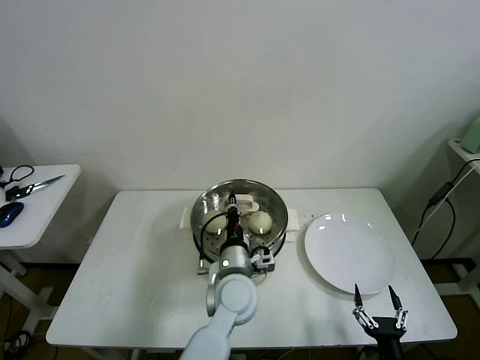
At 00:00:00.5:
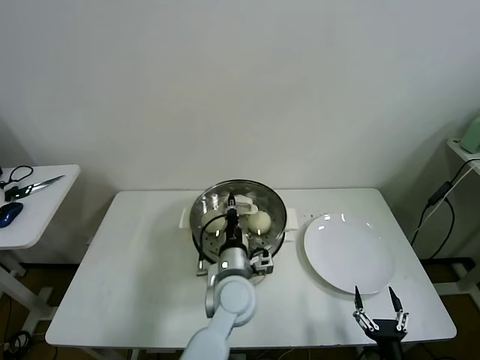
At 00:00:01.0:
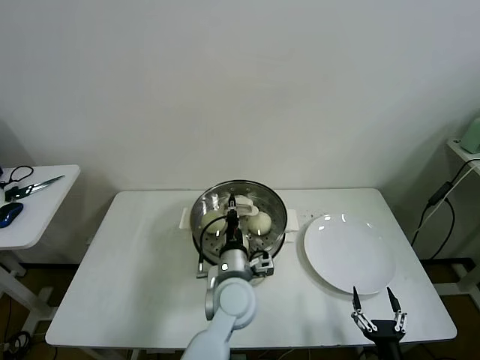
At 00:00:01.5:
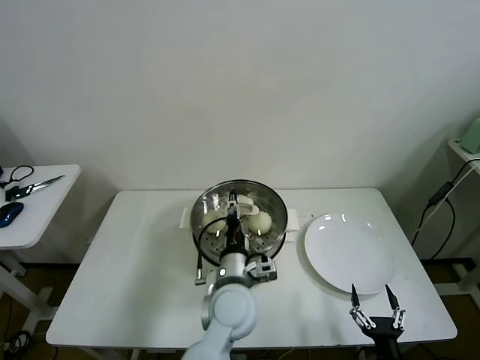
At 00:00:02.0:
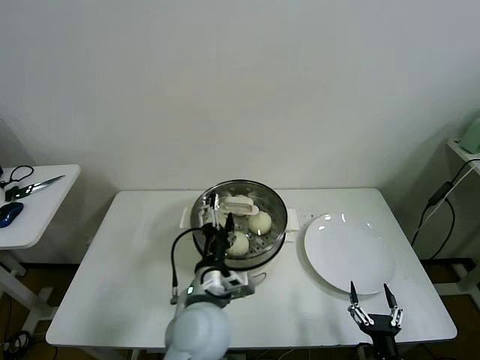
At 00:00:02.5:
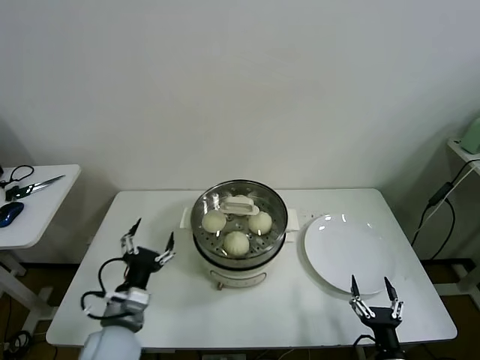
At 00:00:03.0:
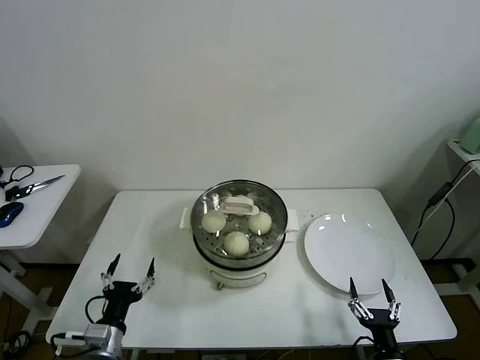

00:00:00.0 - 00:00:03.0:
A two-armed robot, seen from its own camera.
Task of the whole recording: take steamed baozi put them in steamer then cover it.
00:00:00.0 - 00:00:01.5: The left gripper opens up.
00:00:01.5 - 00:00:03.0: The left gripper travels to the left and backward by about 30 cm, and opens its fingers.
